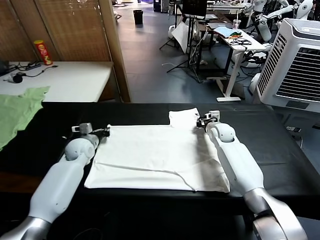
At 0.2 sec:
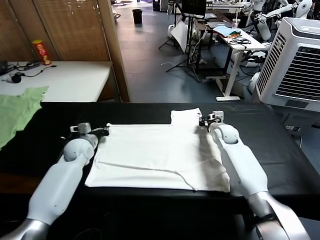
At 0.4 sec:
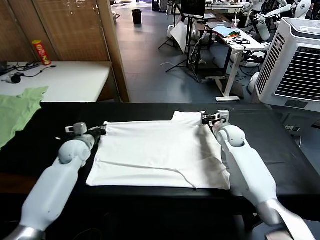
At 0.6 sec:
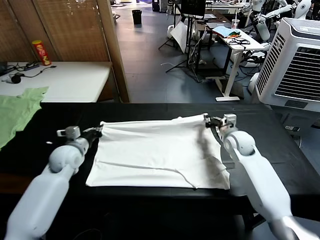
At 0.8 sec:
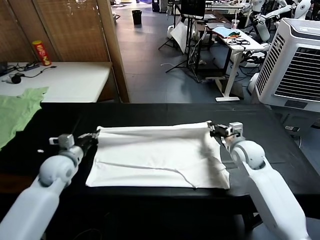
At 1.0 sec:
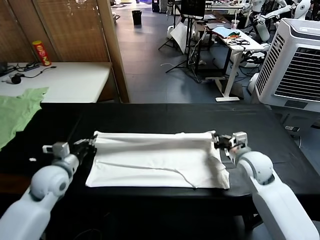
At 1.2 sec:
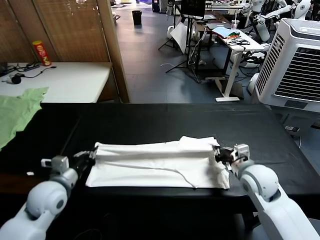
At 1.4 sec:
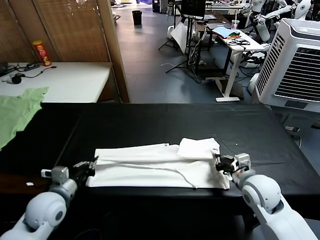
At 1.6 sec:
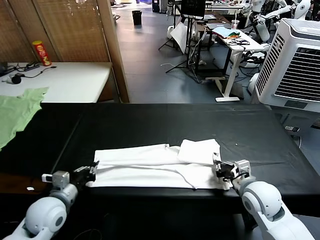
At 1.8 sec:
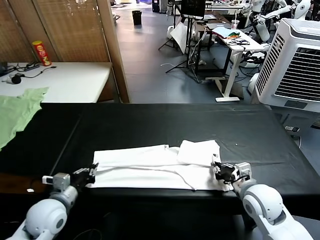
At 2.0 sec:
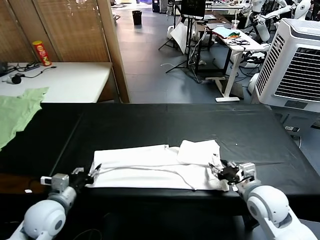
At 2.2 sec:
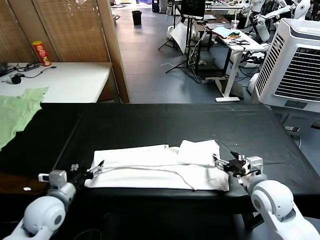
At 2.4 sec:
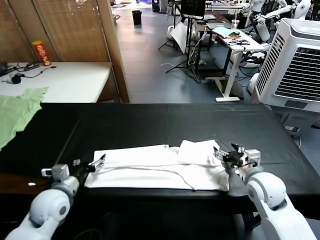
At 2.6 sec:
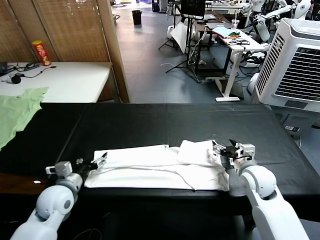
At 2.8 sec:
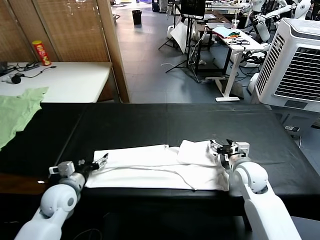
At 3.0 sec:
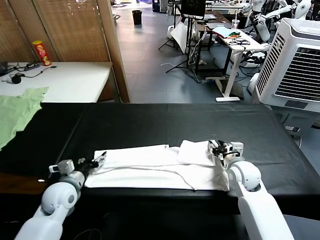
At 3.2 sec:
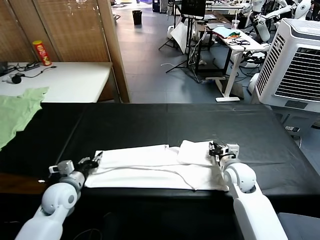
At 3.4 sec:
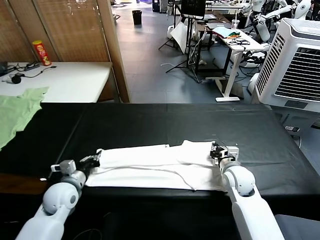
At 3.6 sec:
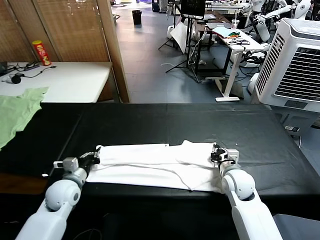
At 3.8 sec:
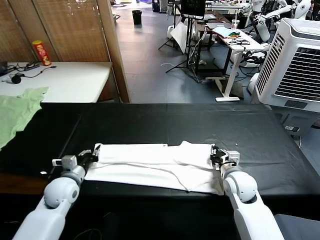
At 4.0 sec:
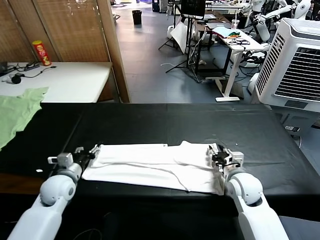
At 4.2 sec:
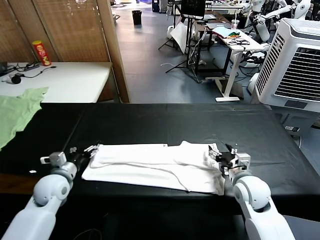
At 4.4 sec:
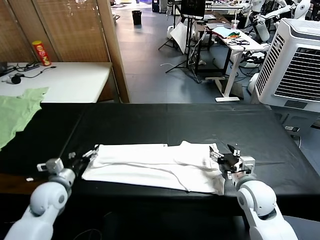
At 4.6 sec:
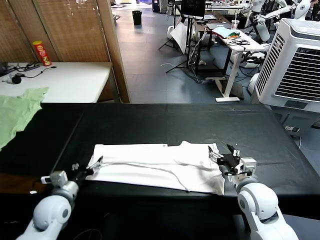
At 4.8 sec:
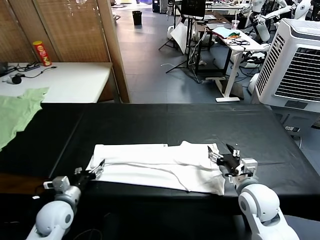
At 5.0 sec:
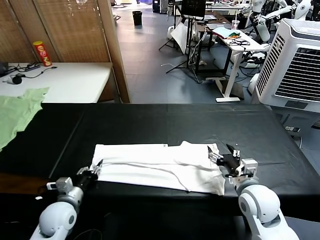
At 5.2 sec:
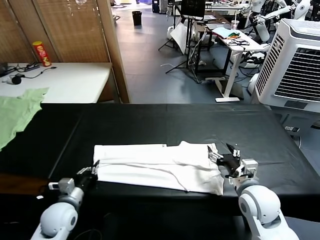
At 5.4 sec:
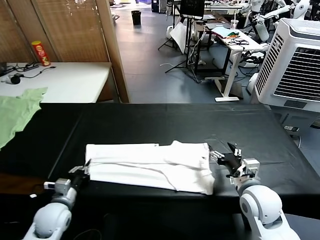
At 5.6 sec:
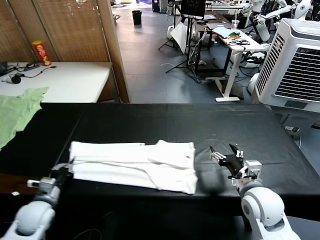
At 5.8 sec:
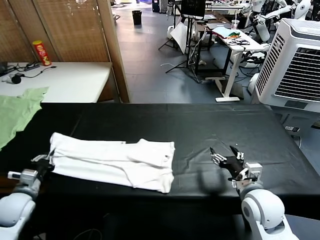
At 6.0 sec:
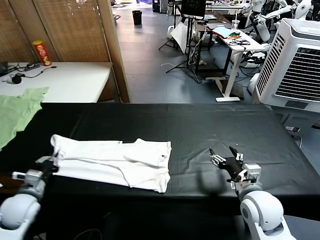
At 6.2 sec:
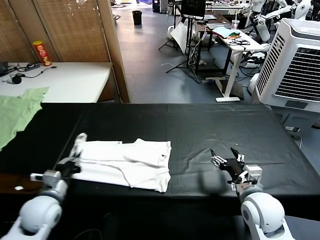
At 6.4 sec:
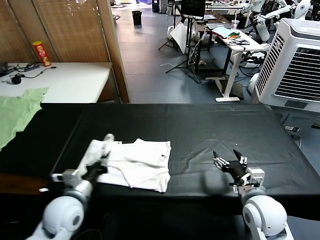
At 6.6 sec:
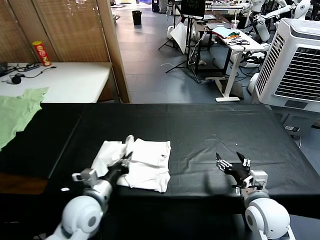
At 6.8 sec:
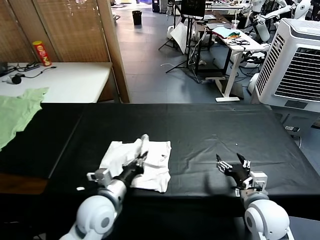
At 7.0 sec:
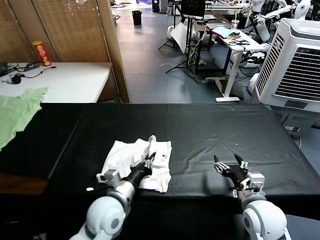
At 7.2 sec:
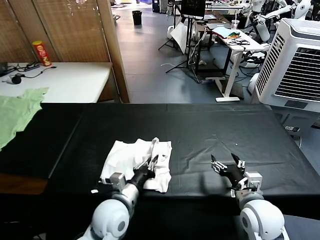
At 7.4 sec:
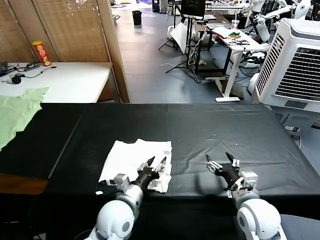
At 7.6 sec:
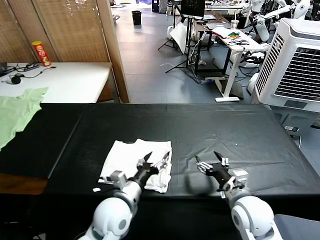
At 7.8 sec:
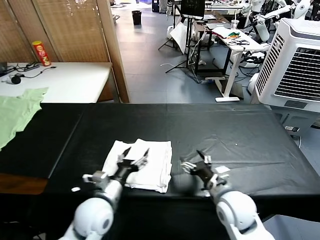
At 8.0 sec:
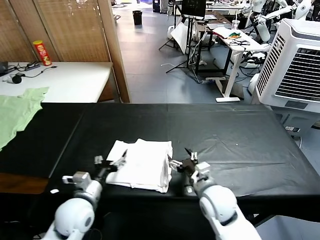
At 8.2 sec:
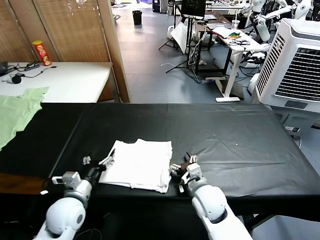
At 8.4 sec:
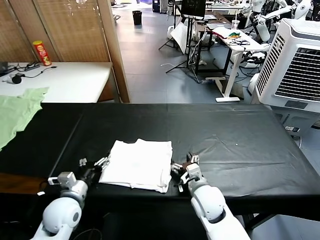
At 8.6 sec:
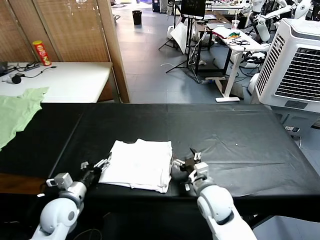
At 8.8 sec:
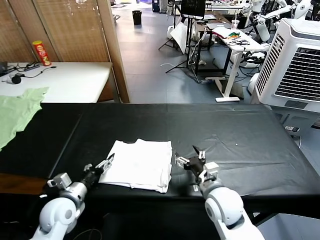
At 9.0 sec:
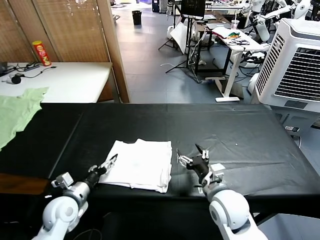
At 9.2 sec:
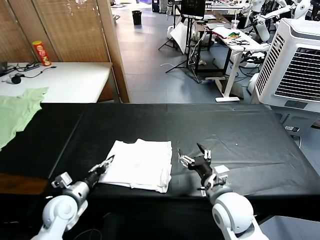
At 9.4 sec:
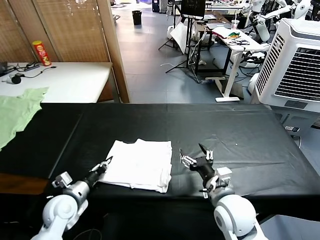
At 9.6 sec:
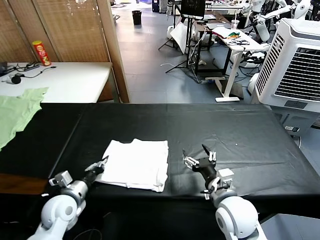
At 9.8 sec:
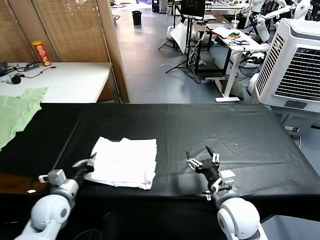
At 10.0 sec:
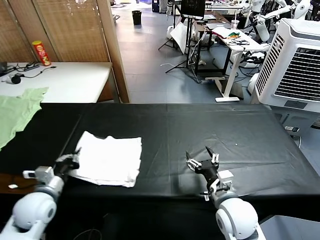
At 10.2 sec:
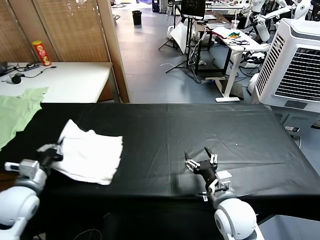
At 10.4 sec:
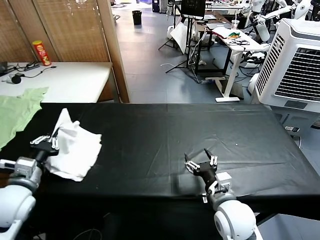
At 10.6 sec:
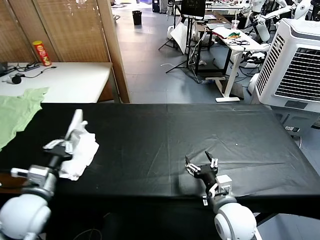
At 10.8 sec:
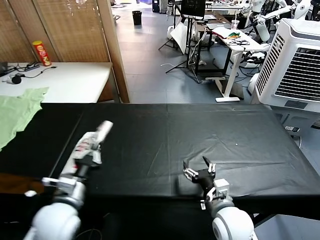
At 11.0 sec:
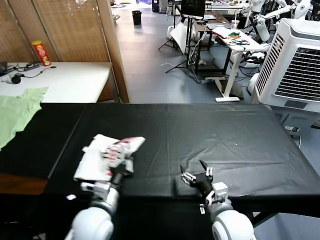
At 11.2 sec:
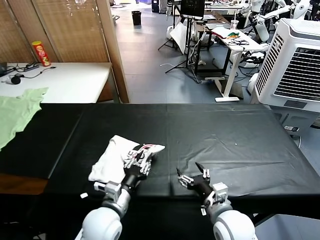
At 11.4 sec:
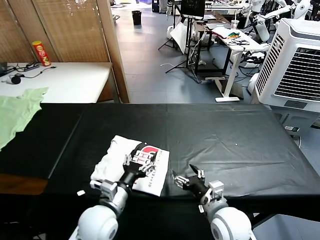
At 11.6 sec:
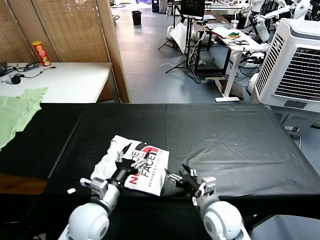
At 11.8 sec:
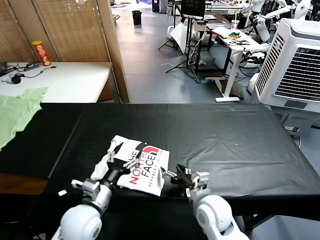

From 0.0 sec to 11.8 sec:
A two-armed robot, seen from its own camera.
Task of the whole recording: fold and organize the clothes.
Step, from 0.2 sec to 2.0 sec: use both grippers to drag the upper edge of the fabric backward and fold it over the lower edge.
Step, from 2.2 sec to 5.2 sec: use the left gripper to clamp the left edge of the fabric.
Step, from 5.4 sec to 7.4 sec: use the left gripper to drag the left edge of the fabric to the left and folds it over the right edge.
Step, from 7.6 sec to 11.2 sec: Flip the folded clothes over with left gripper.
From 0.0 sec to 1.4 sec: The two grippers go approximately 25 cm backward.
From 1.4 sec to 3.0 sec: The left gripper moves some 5 cm, and opens its fingers. Meanwhile the right gripper is displaced forward by some 10 cm, and opens its fingers.
From 3.0 sec to 4.4 sec: The left gripper closes, then reopens. The right gripper heads backward, covering approximately 10 cm, and opens up.
From 4.4 sec to 6.0 sec: The left gripper goes approximately 10 cm to the left, and closes up.
From 6.0 sec to 7.4 sec: The left gripper is displaced to the right by roughly 30 cm, and opens up.
From 7.4 sec to 8.8 sec: The right gripper shifts approximately 10 cm to the left; the left gripper shifts some 20 cm to the left.
From 8.8 sec to 10.4 sec: The left gripper heads upward and to the left, covering approximately 15 cm, and closes its fingers.
From 10.4 sec to 11.8 sec: The left gripper travels to the right by approximately 20 cm, and opens its fingers; the right gripper changes place by roughly 5 cm.

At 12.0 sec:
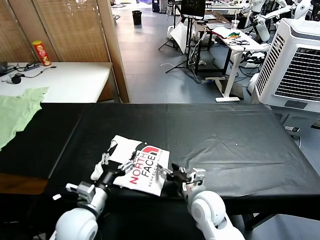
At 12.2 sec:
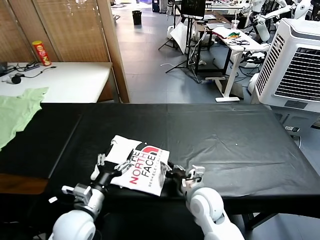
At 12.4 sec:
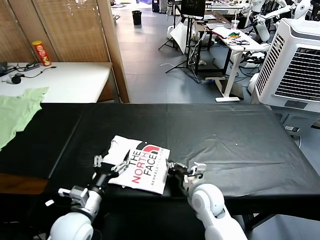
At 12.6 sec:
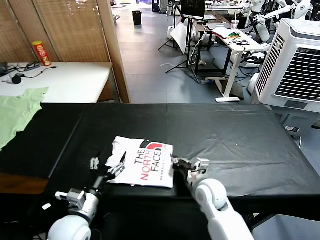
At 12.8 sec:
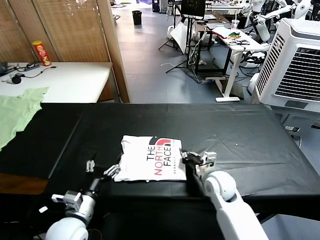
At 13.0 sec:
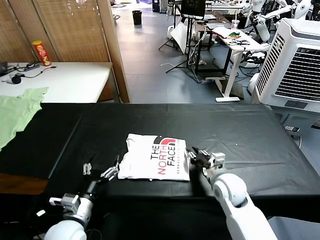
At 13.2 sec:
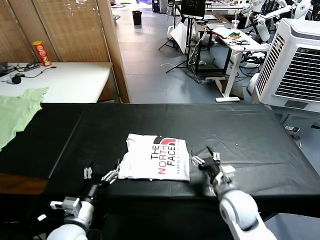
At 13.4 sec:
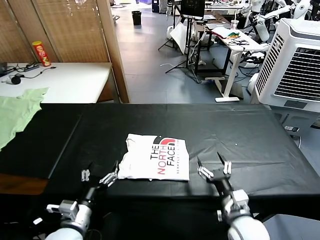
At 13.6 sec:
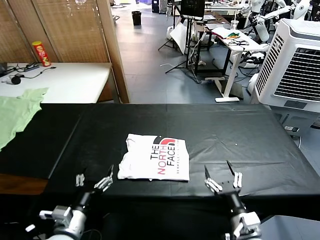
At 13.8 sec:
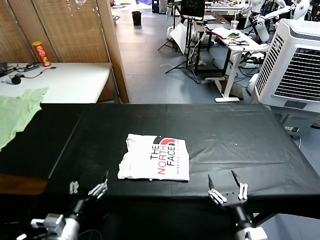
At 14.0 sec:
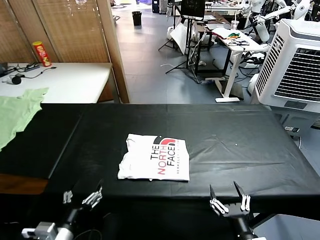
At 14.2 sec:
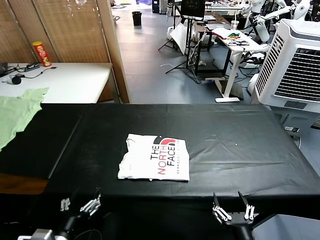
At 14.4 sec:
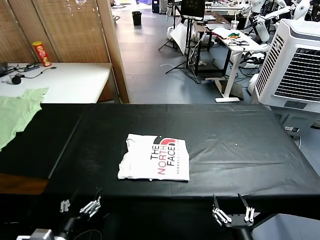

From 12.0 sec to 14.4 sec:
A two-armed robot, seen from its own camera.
Task of the whole recording: fold and organize the clothes.
Step, from 12.0 sec to 13.0 sec: Drag the clothes to the center of the table.
From 12.0 sec to 13.2 sec: The right gripper travels to the right by about 10 cm, and closes and opens again. Meanwhile the left gripper moves some 5 cm.
From 13.2 sec to 14.4 sec: The right gripper goes approximately 20 cm backward. Meanwhile the left gripper is displaced backward by some 10 cm.
